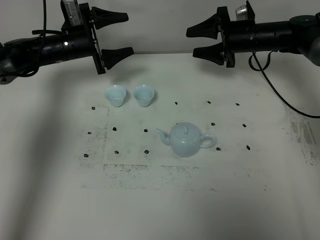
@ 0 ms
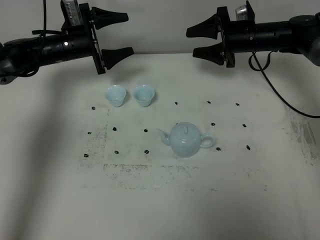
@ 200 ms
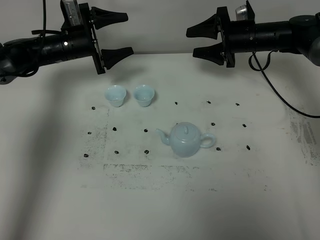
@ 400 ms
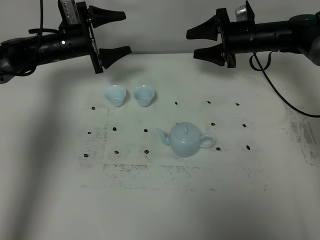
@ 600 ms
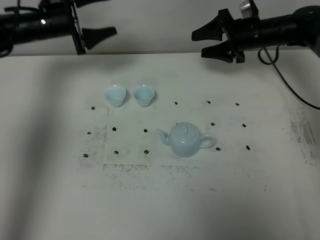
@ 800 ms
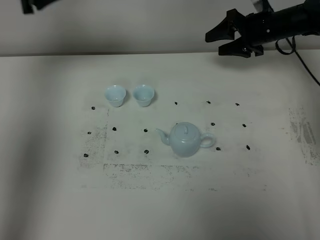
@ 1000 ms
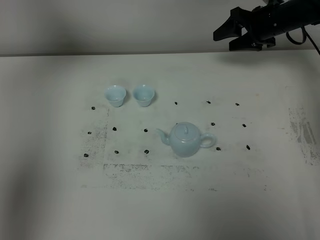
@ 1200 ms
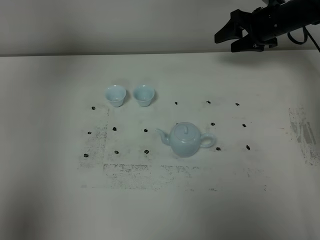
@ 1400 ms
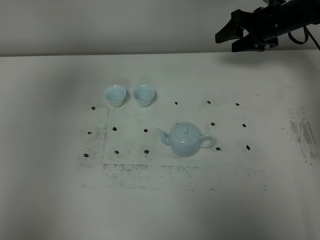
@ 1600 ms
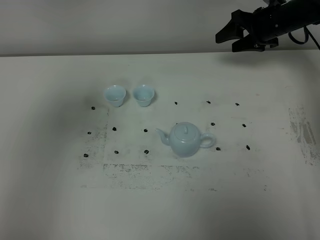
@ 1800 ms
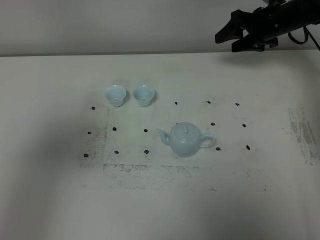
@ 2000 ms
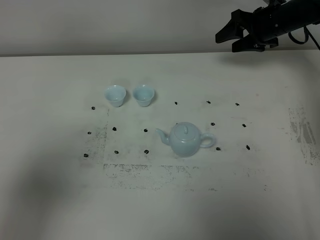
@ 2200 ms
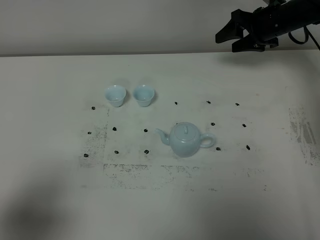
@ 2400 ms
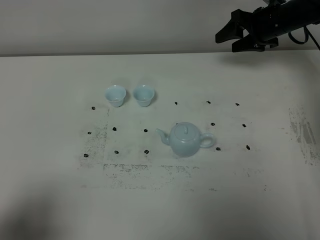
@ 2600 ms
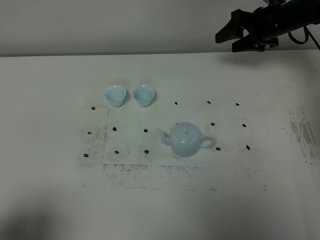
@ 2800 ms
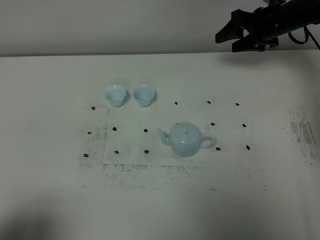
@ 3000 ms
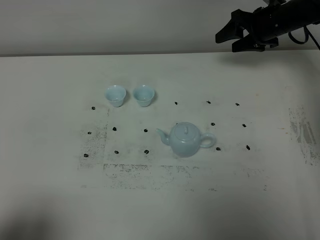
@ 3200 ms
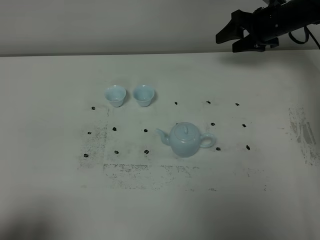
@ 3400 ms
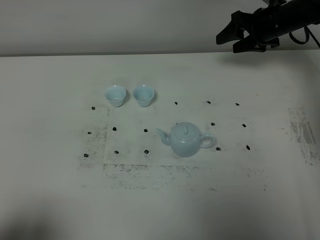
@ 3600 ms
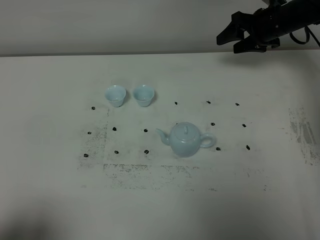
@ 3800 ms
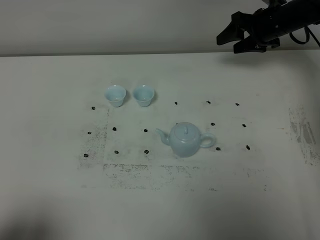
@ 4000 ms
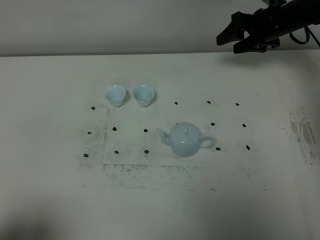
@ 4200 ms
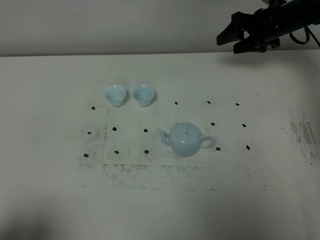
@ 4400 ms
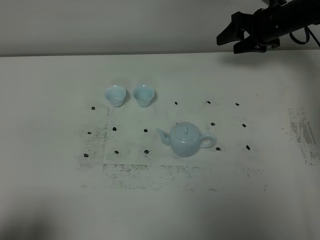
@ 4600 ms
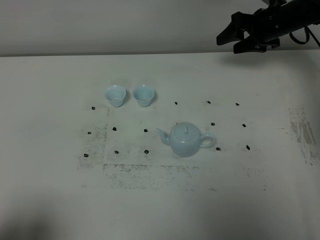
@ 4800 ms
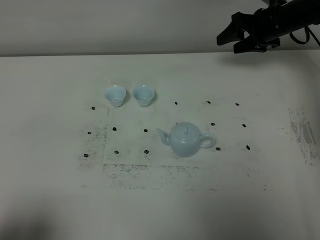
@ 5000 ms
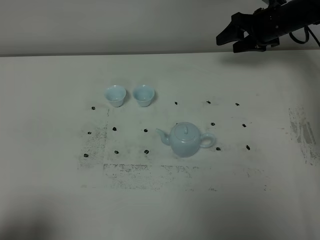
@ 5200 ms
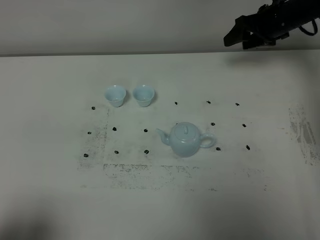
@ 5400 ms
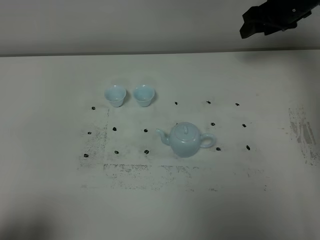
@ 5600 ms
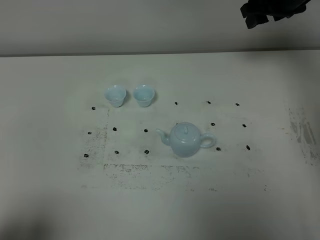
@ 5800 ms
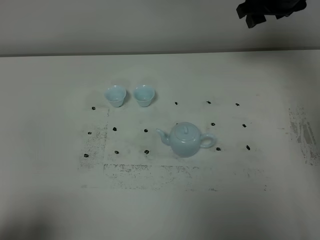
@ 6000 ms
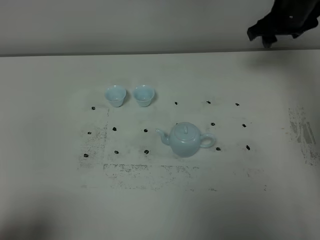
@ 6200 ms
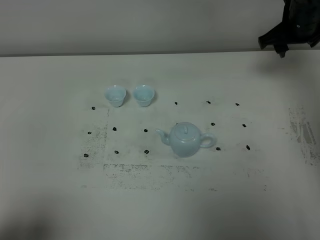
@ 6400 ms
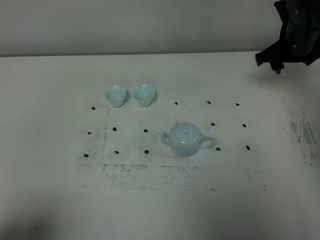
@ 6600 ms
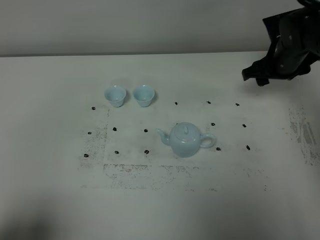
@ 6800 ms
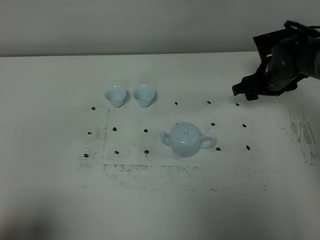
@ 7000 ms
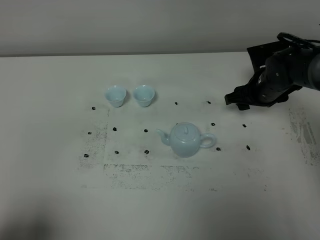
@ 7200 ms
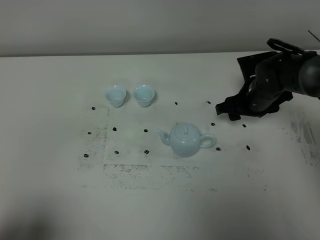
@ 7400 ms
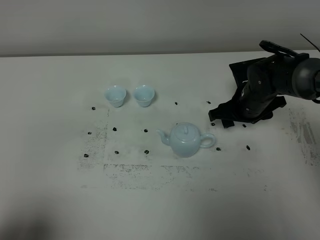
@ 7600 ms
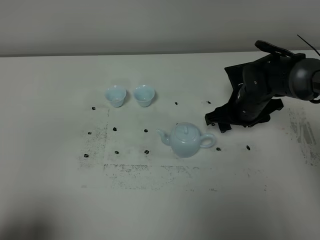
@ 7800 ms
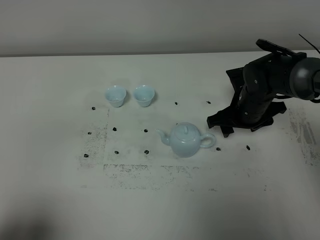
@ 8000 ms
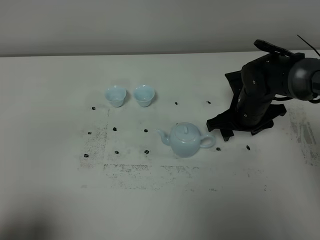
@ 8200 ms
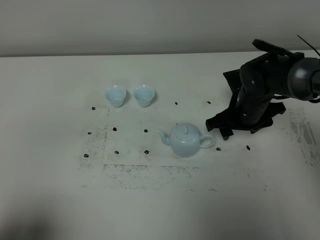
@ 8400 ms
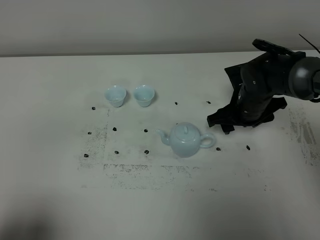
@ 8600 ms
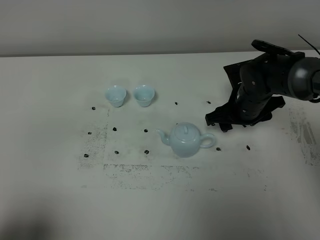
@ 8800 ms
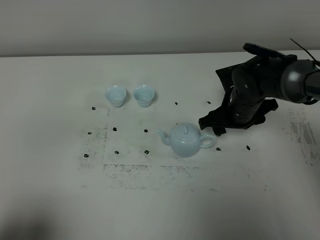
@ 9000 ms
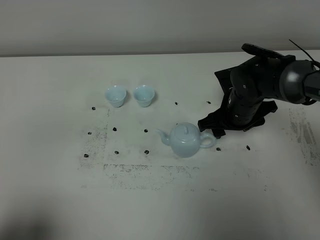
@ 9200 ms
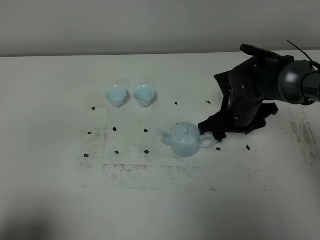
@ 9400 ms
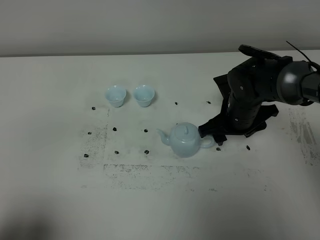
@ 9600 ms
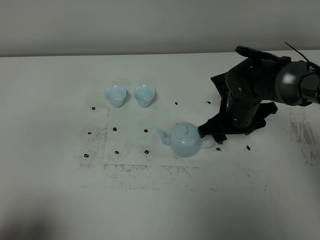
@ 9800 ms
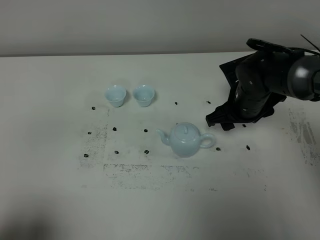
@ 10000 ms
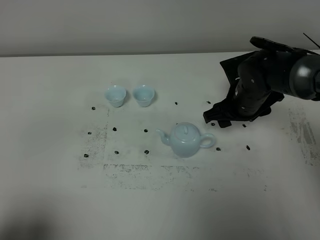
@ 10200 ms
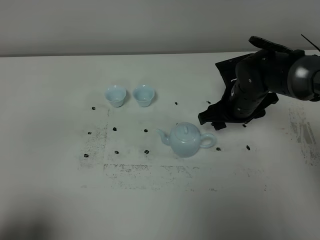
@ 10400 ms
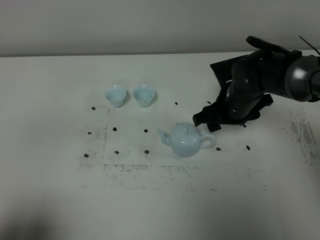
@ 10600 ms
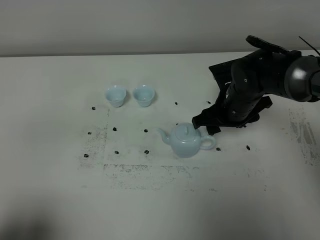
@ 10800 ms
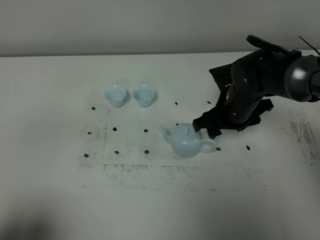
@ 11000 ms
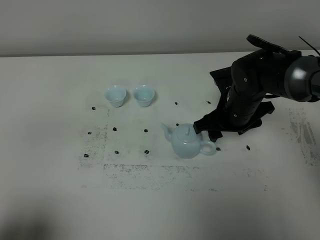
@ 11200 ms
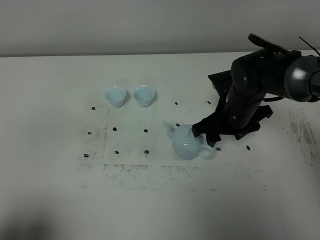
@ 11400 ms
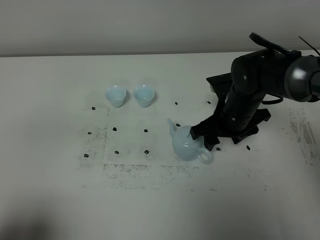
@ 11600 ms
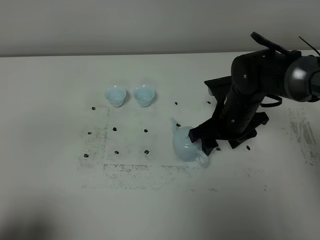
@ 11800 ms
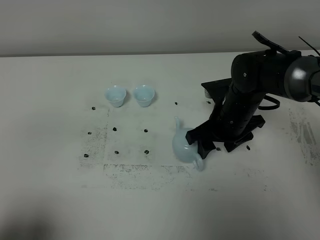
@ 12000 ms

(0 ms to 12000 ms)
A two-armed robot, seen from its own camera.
Task of the whole recording: grasp the blue porcelain teapot and pour the tea into the two blue porcelain teacups one by one, put the blue porcelain teapot back in its original place.
0 ms - 1600 ms: The left gripper moves upward and backward, approximately 50 cm. Meanwhile the right gripper shifts some 5 cm to the right.
1600 ms - 3000 ms: The left gripper shifts some 30 cm downward and backward.
3000 ms - 4400 ms: Neither gripper changes place.
4400 ms - 6000 ms: The right gripper shifts roughly 10 cm upward.
6000 ms - 7600 ms: The right gripper is displaced downward and backward by about 20 cm.
7600 ms - 10400 ms: There are only small adjustments of the grippers.
10400 ms - 12000 ms: The grippers make only small movements.

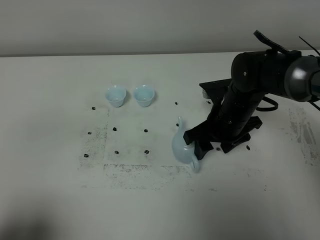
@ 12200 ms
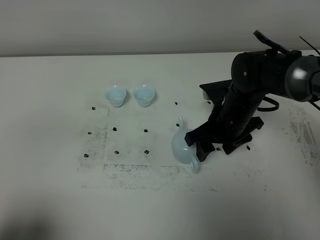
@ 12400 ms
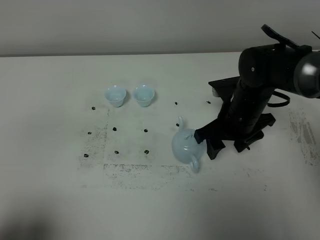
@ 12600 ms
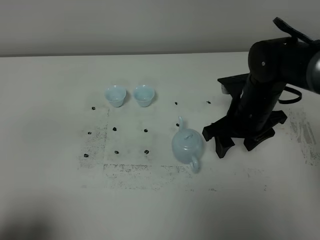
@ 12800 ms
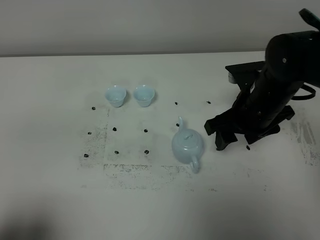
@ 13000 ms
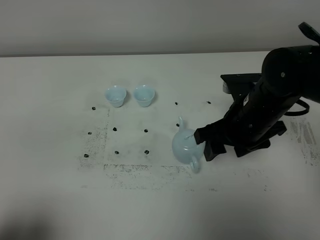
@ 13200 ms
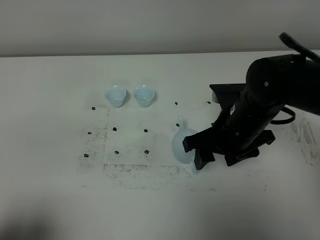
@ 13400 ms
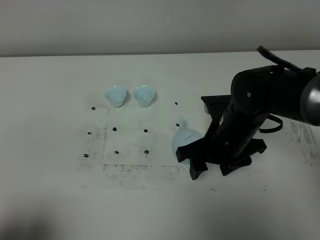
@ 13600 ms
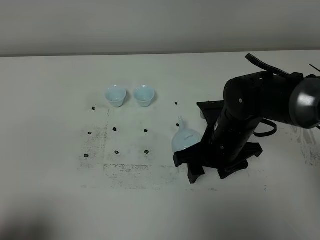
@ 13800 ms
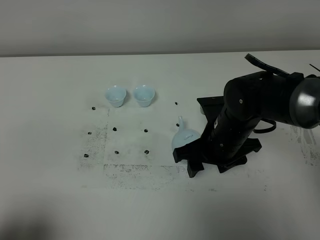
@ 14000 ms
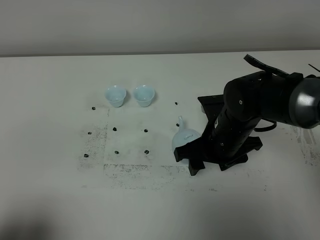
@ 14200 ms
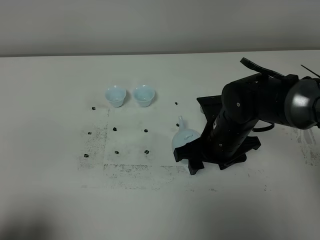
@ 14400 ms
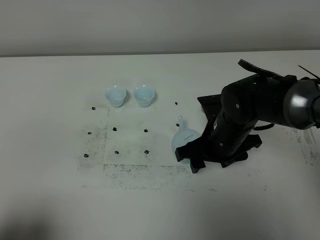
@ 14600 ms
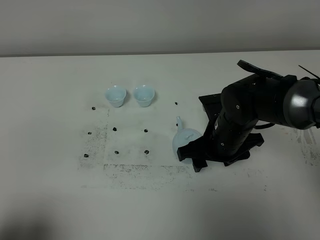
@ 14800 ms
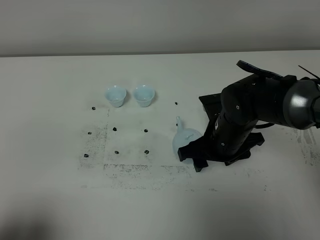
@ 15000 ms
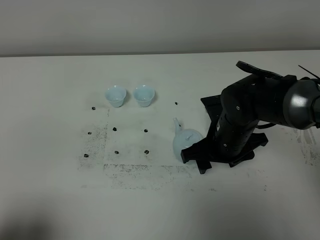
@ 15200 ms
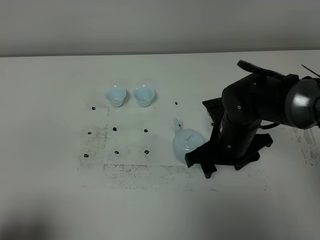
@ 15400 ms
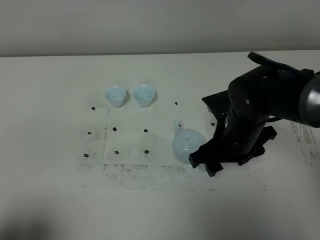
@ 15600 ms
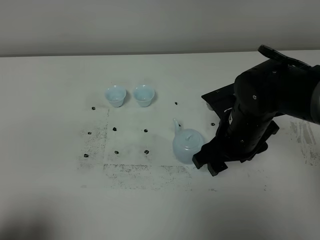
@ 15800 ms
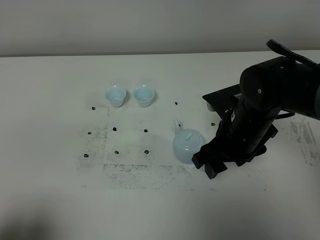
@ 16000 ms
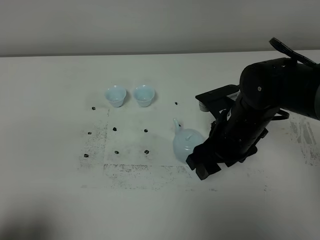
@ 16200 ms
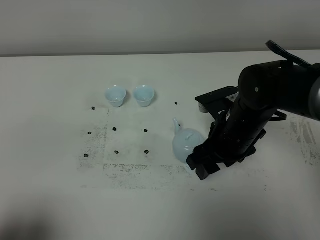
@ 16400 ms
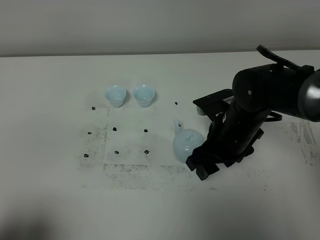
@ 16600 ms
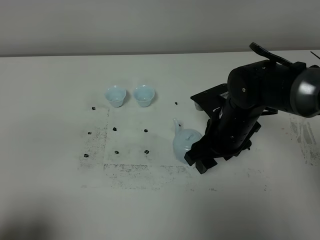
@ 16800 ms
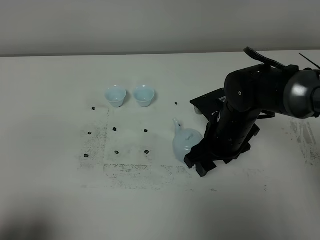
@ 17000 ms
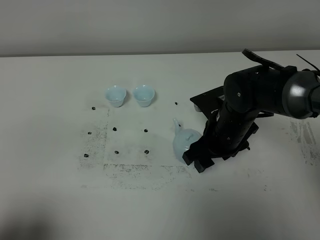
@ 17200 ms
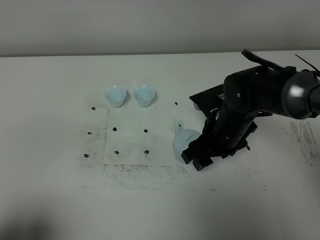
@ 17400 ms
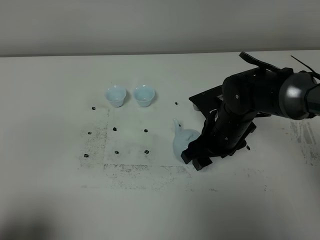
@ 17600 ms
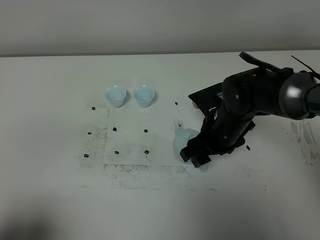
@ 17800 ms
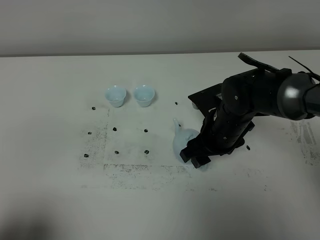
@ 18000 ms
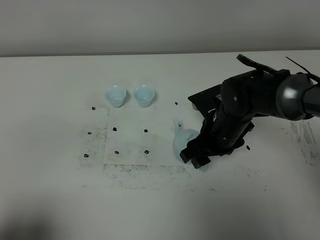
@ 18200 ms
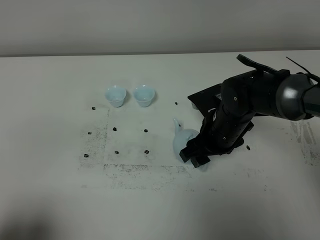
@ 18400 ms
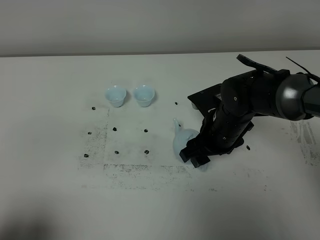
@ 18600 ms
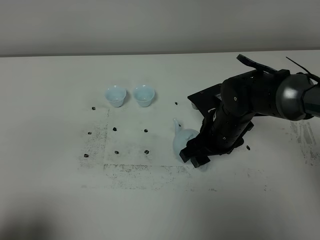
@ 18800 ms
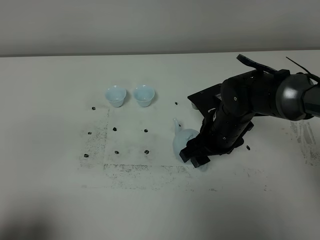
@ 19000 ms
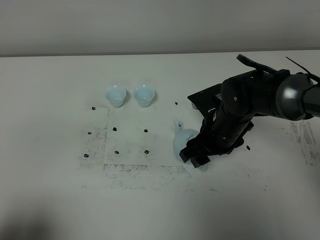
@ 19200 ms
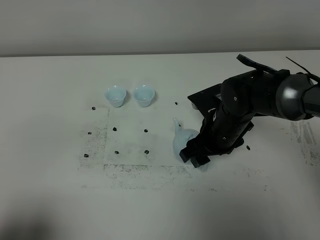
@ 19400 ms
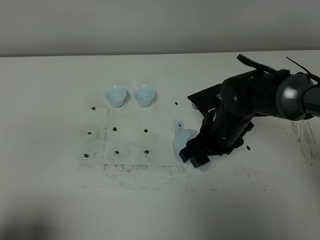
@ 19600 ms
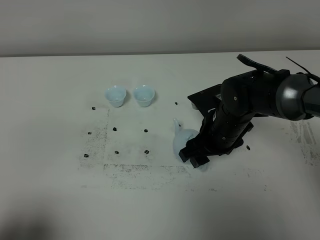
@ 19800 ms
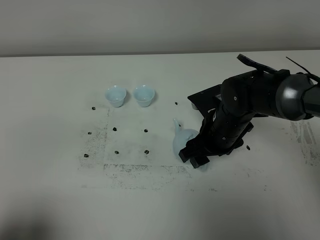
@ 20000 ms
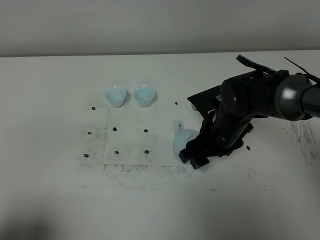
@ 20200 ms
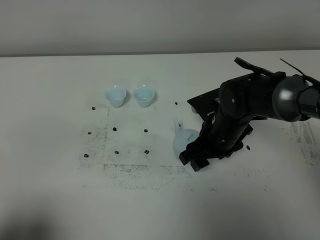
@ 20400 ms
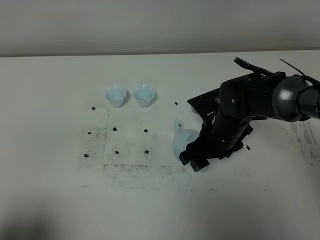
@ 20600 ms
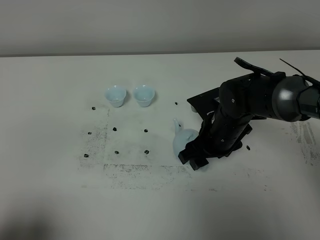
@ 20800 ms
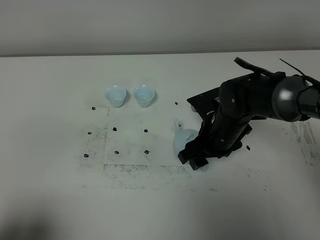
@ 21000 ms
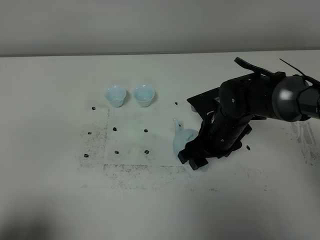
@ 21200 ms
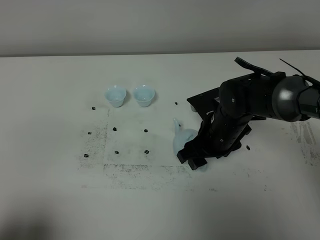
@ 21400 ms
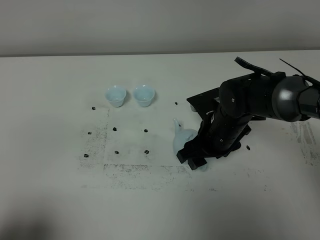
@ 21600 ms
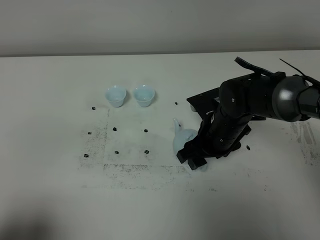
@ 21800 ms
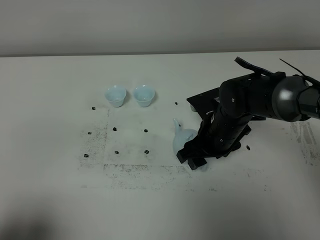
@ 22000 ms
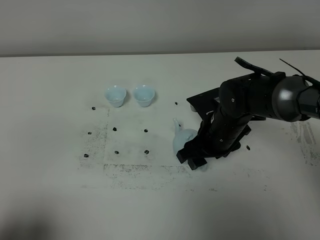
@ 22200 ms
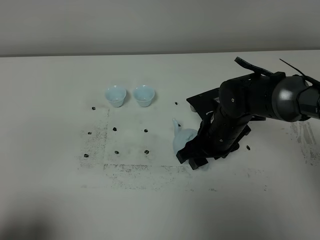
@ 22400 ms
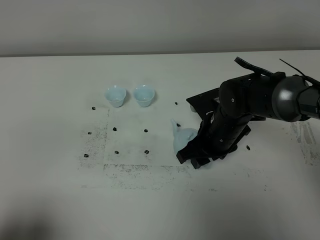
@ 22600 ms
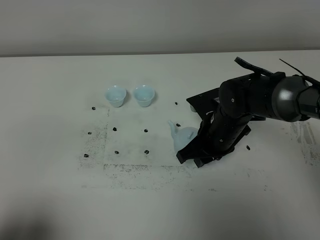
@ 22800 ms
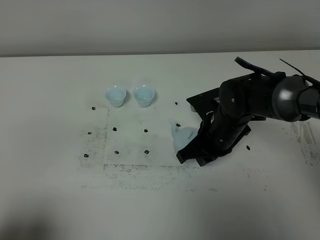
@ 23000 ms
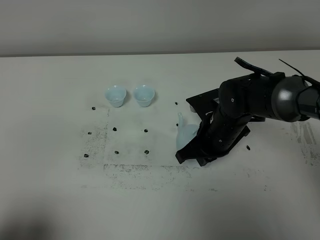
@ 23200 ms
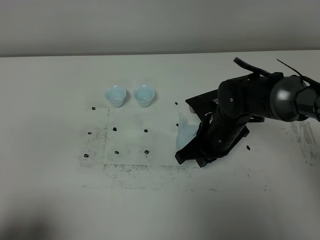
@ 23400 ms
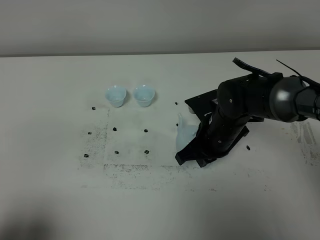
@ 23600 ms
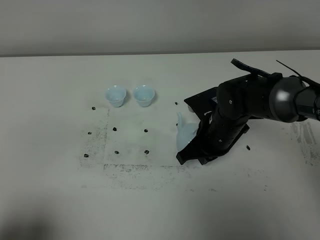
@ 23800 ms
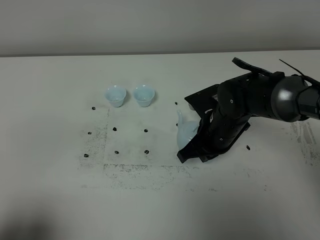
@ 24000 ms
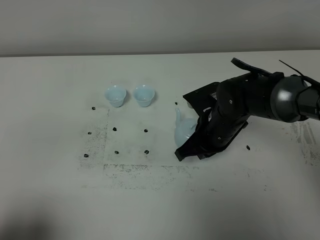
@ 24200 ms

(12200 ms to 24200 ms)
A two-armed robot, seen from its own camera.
Task of the whole recording: grasp the blue porcelain teapot and pour the tea into the two blue porcelain teacups one by one, put the blue porcelain teapot back in its original place.
Step, 12200 ms - 24200 ms: Pick up the teapot with the right gripper.
12200 ms - 13800 ms: The right gripper is displaced backward by some 5 cm.
13800 ms - 18200 ms: The grippers stay close to where they were, moving slightly.
18200 ms - 22600 ms: Both grippers stay put.
22600 ms - 24200 ms: The right gripper closes up.
